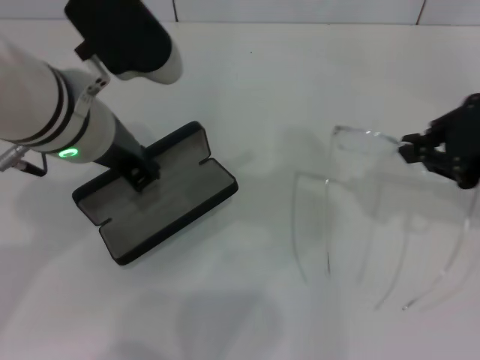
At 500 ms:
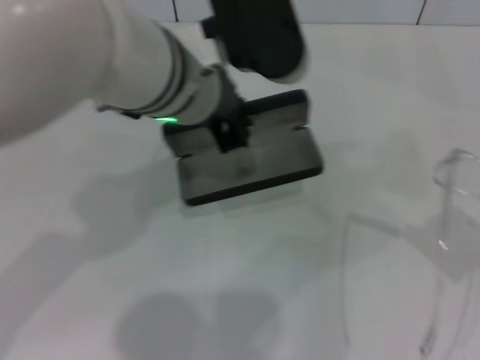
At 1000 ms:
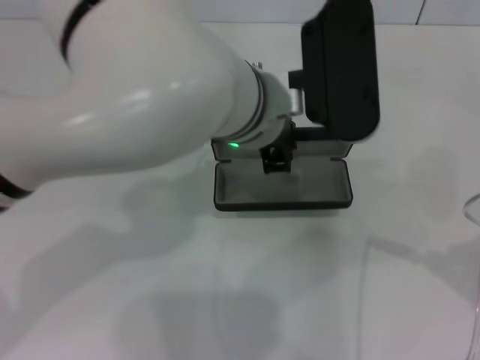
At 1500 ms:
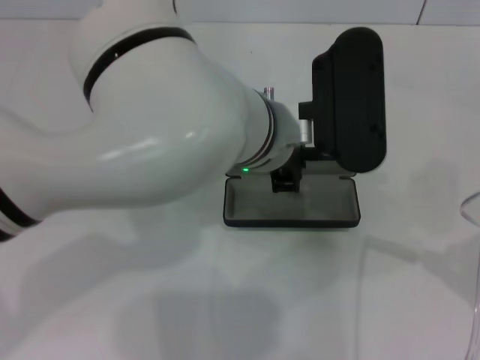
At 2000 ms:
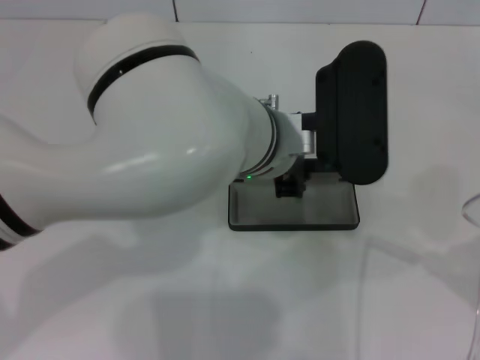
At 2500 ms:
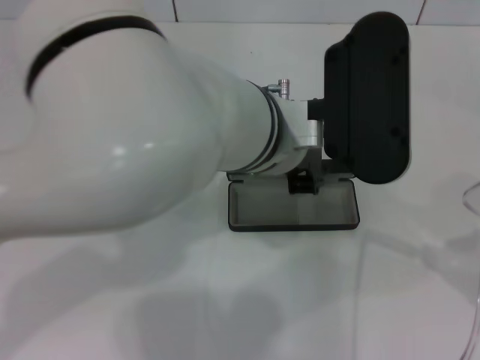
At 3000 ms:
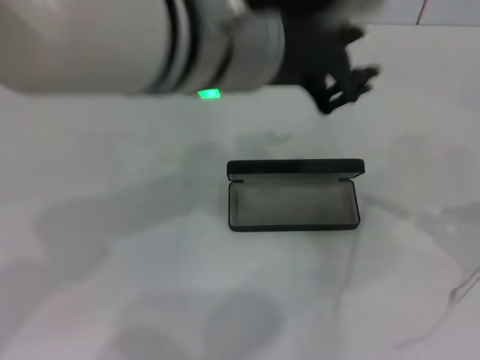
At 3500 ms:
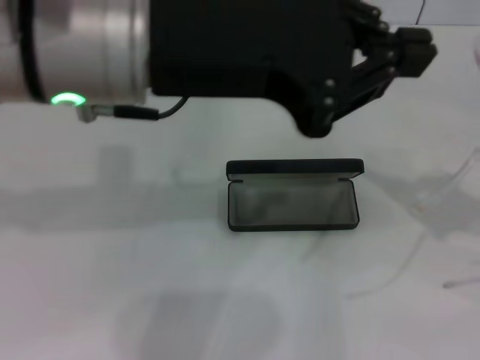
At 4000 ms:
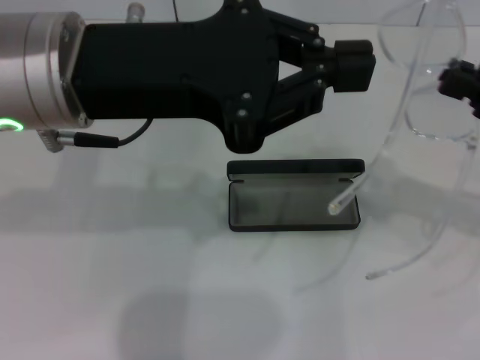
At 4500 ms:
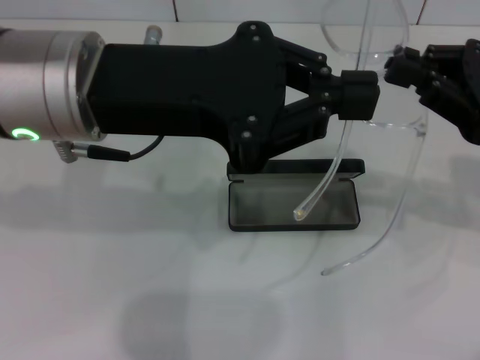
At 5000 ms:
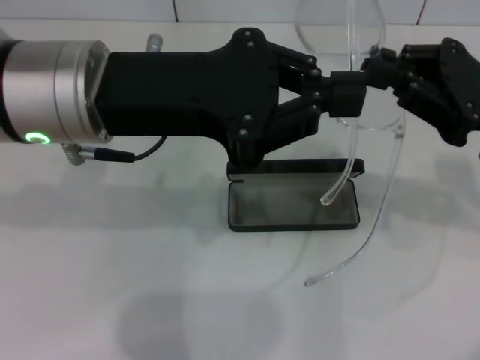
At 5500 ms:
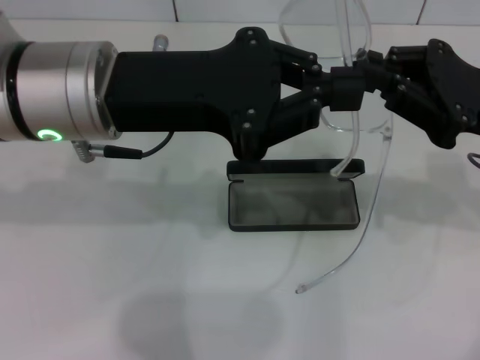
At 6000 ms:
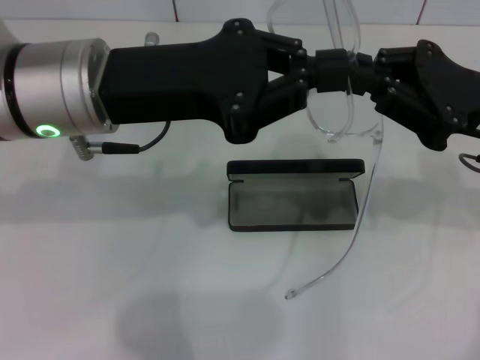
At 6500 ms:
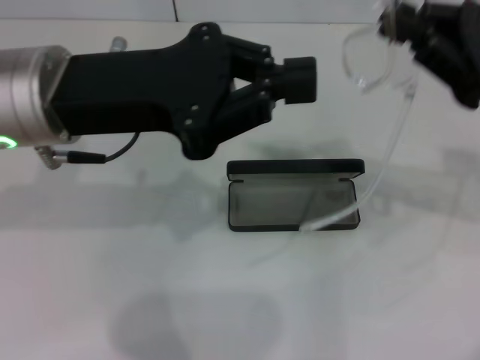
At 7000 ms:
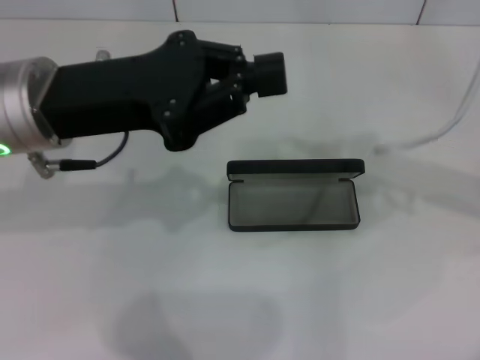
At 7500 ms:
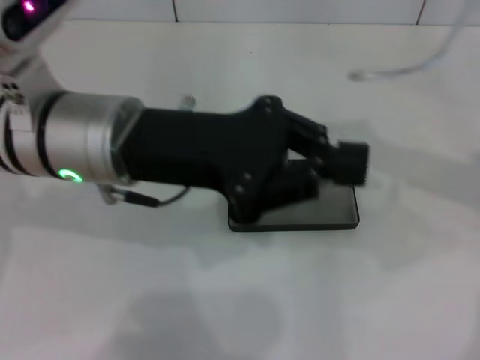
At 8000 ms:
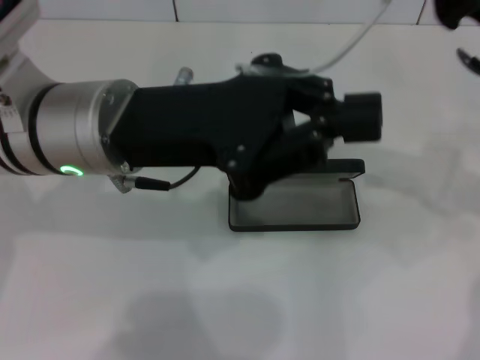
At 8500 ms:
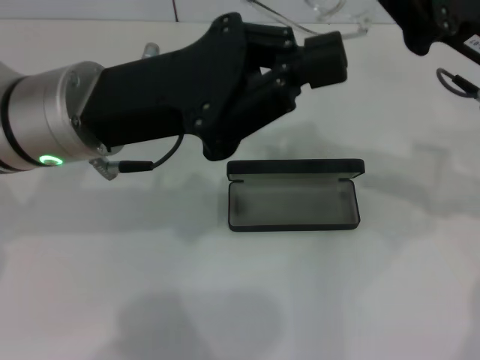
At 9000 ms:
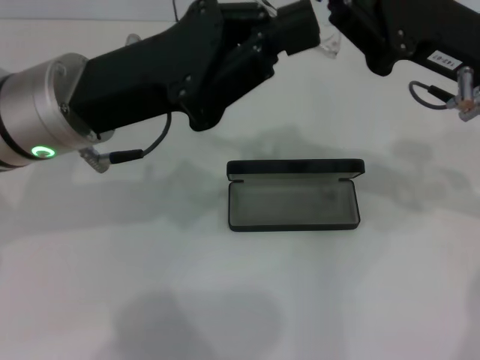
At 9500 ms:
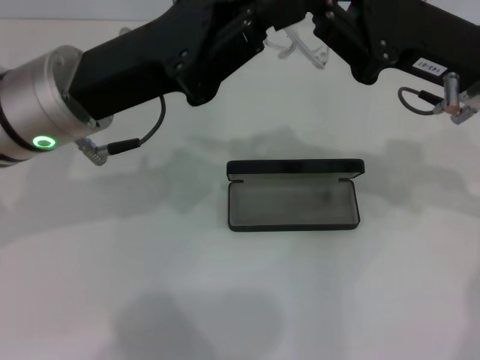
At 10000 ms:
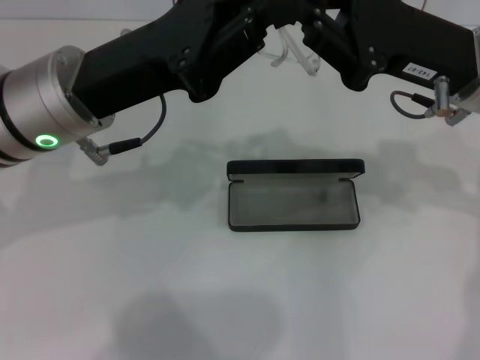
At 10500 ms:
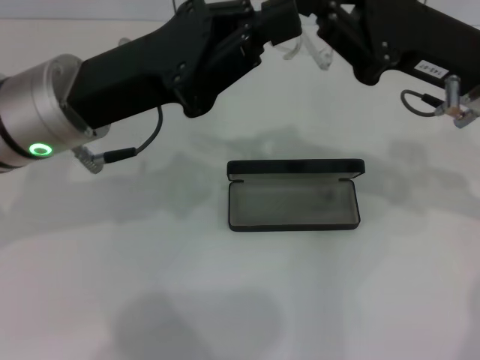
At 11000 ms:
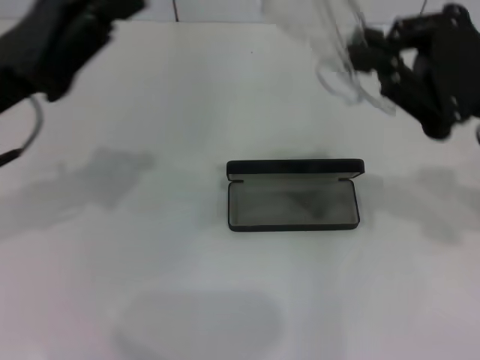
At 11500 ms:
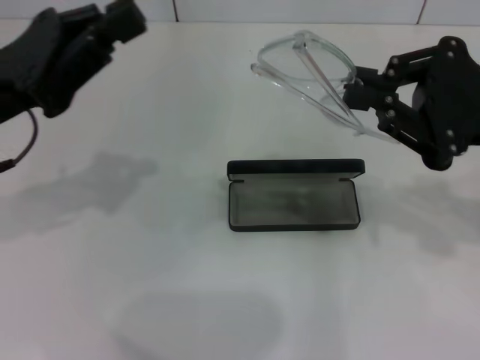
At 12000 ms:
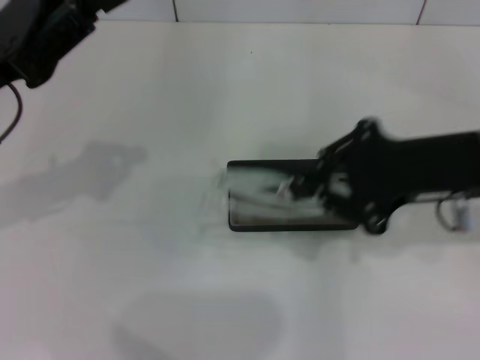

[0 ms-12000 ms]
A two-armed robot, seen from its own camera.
Step, 0 ms to 2000 ms: Place the glasses case in the center of the table with your left hand.
Step, 2500 ms to 10500 ms: Fold the frame with your left hand.
0 ms to 2000 ms: The right gripper heads to the right and backward, covering some 15 cm, while the left gripper travels to the right by some 15 cm.
2000 ms to 4000 ms: The right gripper is displaced forward and to the left by approximately 10 cm. Meanwhile the left gripper goes roughly 20 cm to the left and upward.
4000 ms to 6000 ms: The left gripper moves approximately 5 cm, while the right gripper shifts approximately 5 cm to the left.
10000 ms to 12000 ms: The right gripper moves backward, approximately 5 cm. The left gripper heads to the left, covering roughly 10 cm.

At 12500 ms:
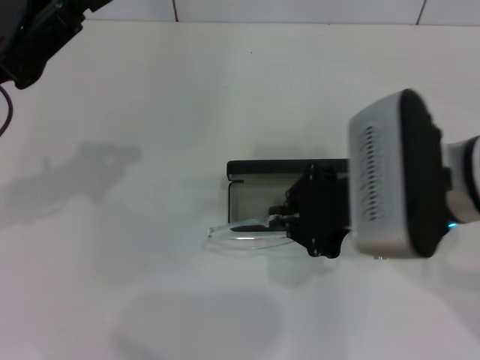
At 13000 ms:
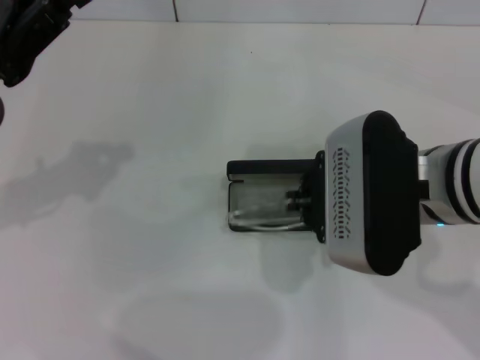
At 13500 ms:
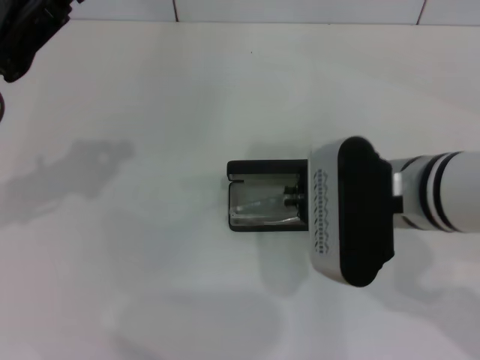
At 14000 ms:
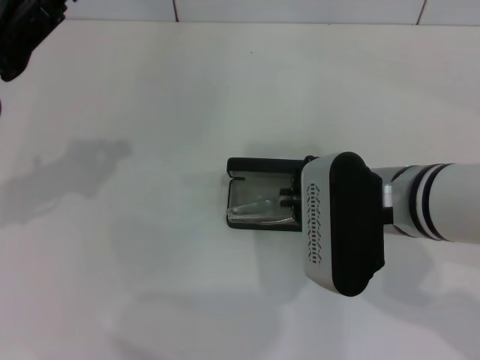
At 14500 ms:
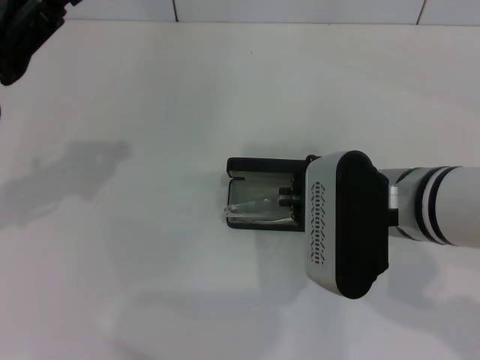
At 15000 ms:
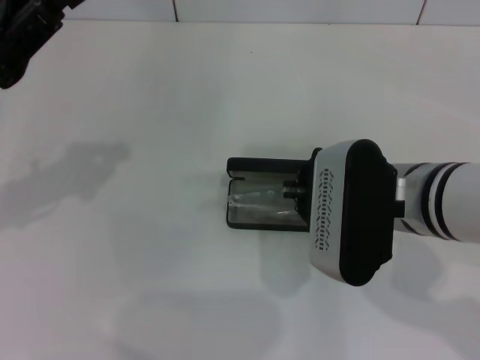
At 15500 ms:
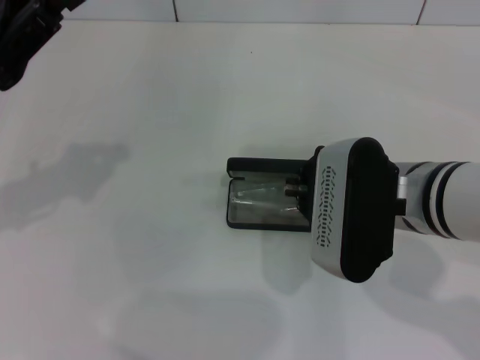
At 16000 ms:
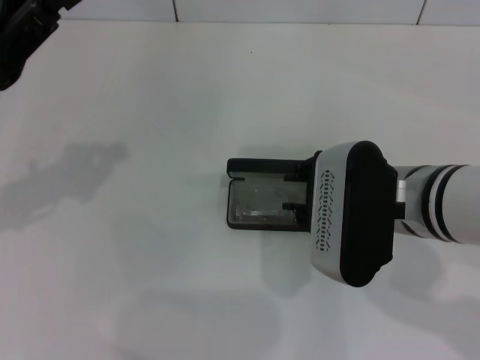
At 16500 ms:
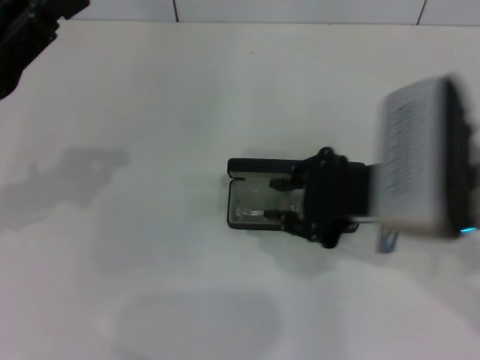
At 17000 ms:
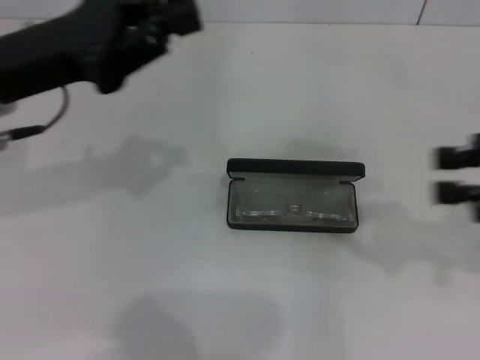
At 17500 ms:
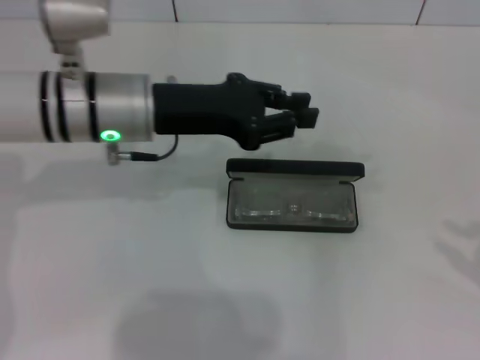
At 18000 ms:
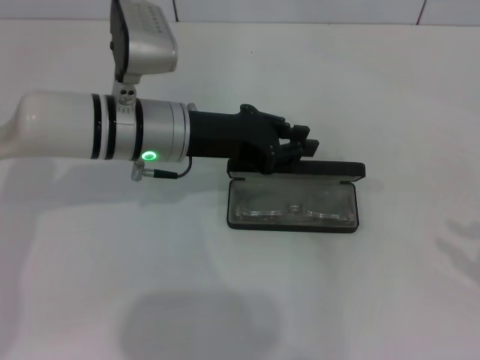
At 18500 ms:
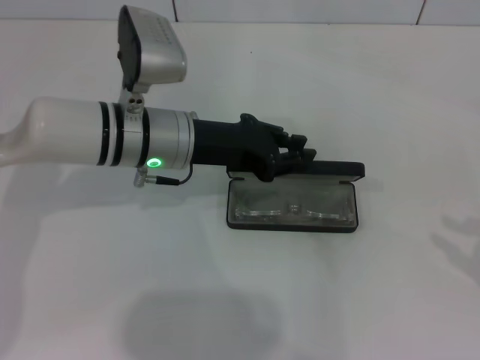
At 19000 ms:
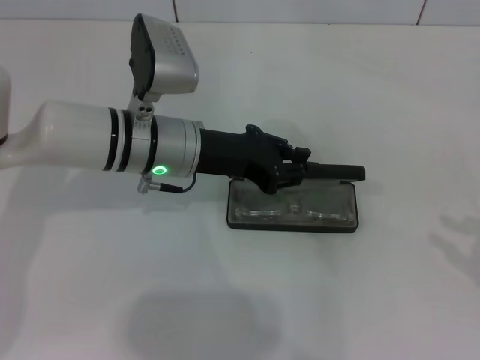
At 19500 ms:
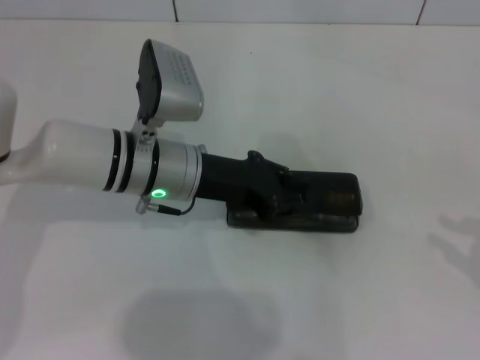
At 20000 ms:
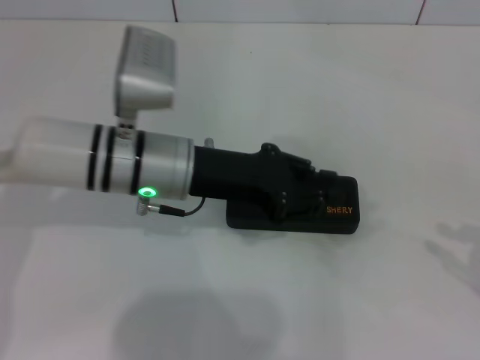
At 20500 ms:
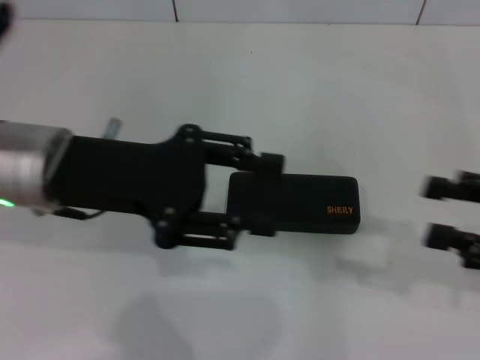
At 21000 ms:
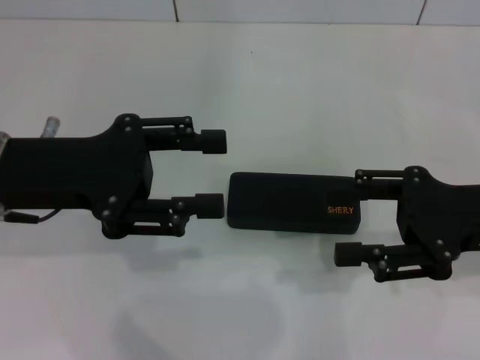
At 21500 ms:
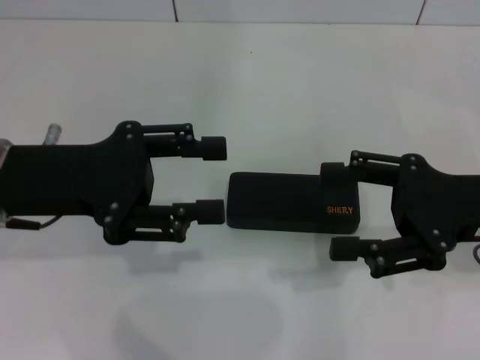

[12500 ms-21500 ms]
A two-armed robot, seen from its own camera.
Step, 12500 ms to 16000 ms: Put the glasses into the case with your right hand.
Step, 16500 ms to 19500 ms: Close the glasses case with your left hand.
12500 ms to 14500 ms: The grippers make only small movements.
14500 ms to 17000 ms: The right gripper travels to the right and upward by approximately 20 cm, and opens. The left gripper moves some 5 cm.
17000 ms to 19500 ms: Both grippers travel together to the right and downward, about 15 cm.
19500 ms to 21500 ms: The left gripper moves to the left, upward and backward, some 15 cm, and opens its fingers. Meanwhile the right gripper shifts roughly 15 cm to the left and forward, and opens its fingers.

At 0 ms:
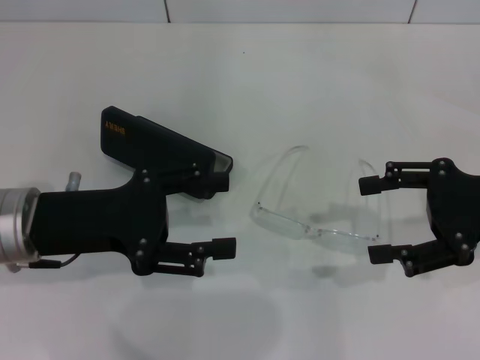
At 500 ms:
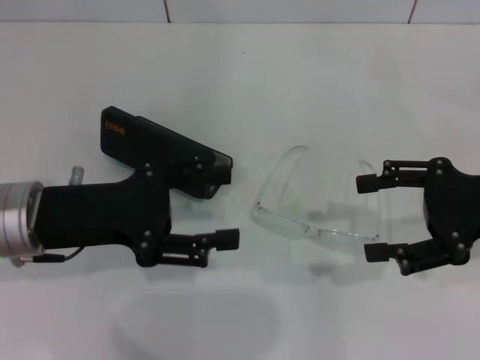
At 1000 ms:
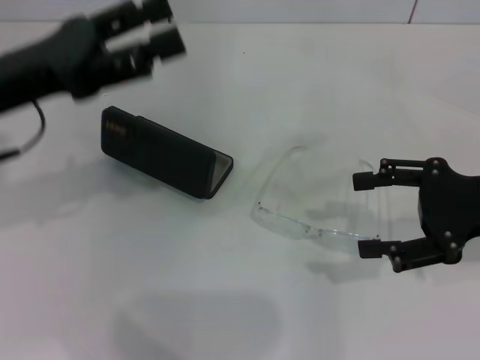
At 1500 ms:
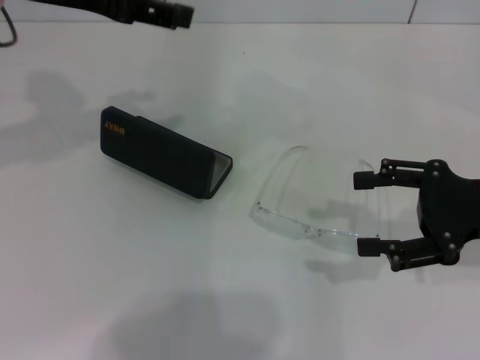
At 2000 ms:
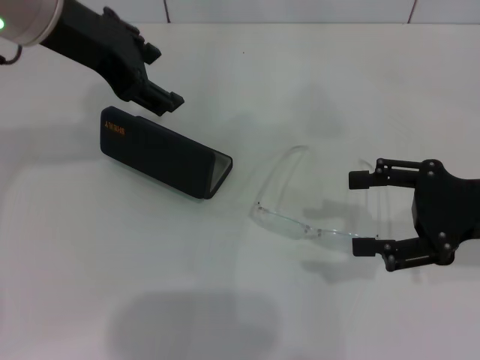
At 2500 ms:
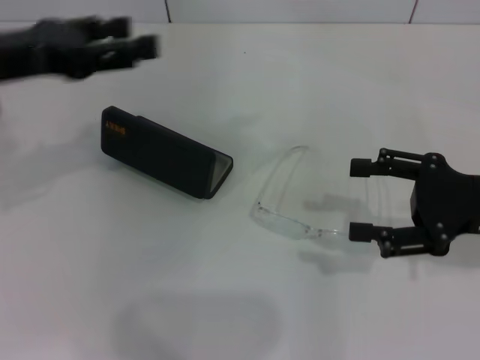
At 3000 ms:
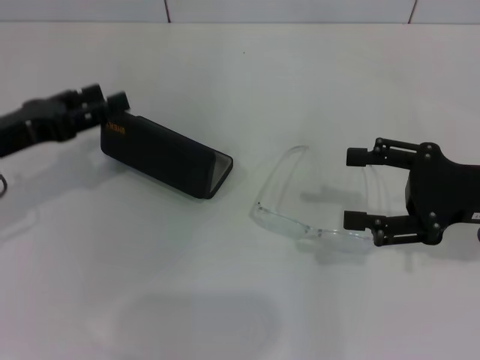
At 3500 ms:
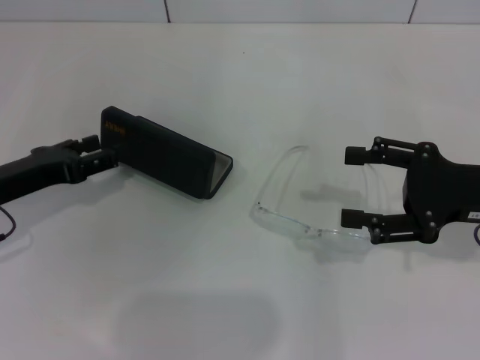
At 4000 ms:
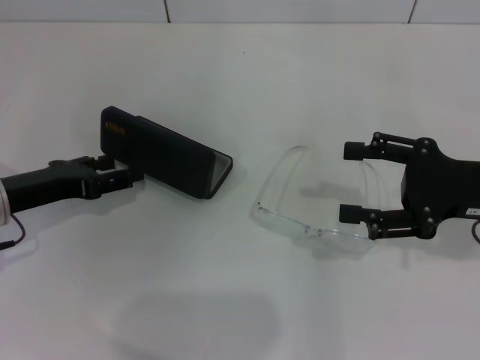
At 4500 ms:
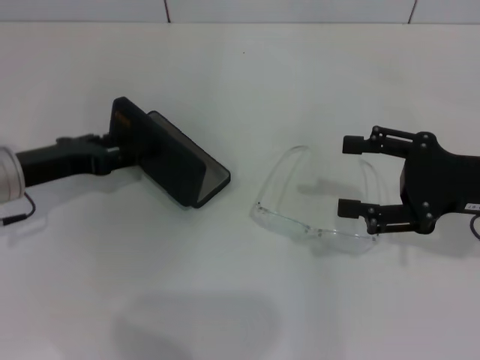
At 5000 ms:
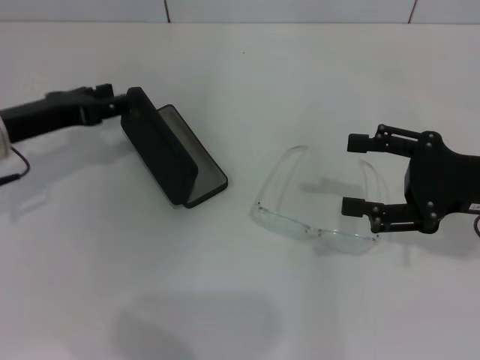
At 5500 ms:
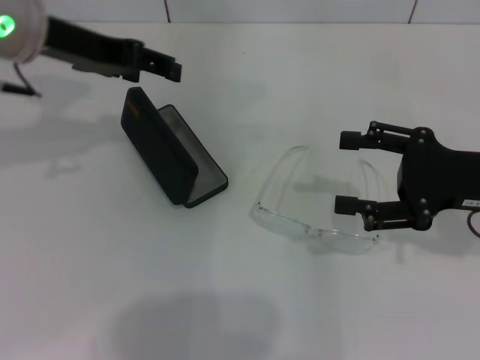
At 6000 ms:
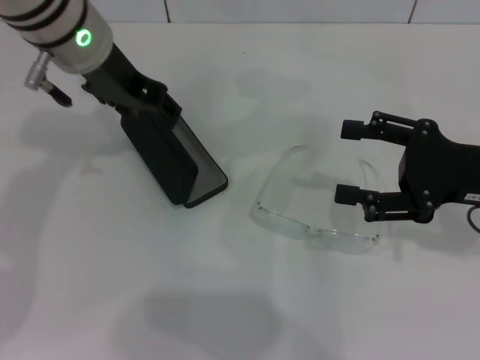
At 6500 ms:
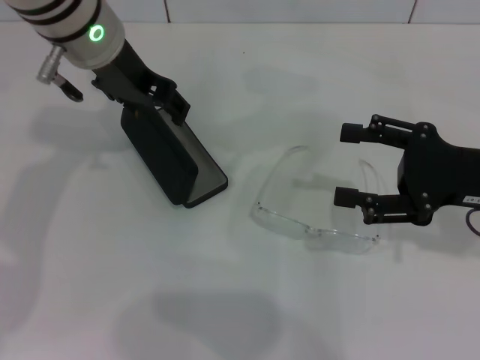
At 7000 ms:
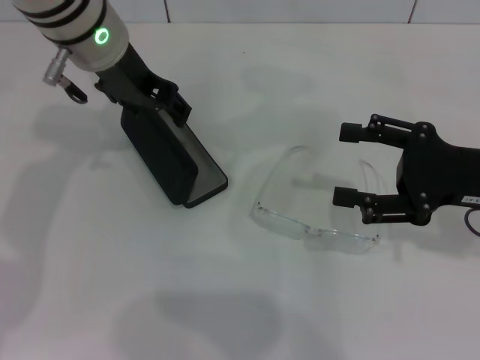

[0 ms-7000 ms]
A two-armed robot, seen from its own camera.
0 ms to 2000 ms: The left gripper heads upward and forward, covering about 20 cm.
2000 ms to 3500 ms: The left gripper shifts approximately 25 cm downward and to the left.
3500 ms to 5000 ms: The left gripper moves forward, roughly 5 cm.
5000 ms to 7000 ms: The left gripper heads to the right, upward and forward, covering some 20 cm.
